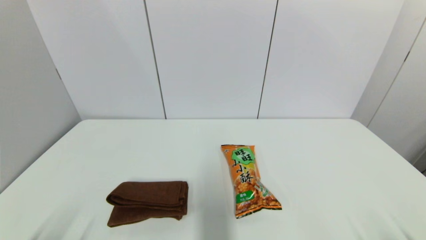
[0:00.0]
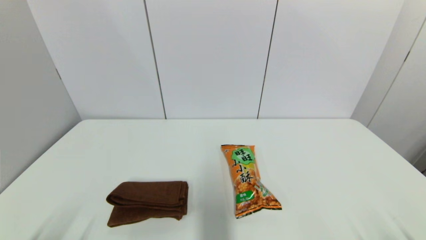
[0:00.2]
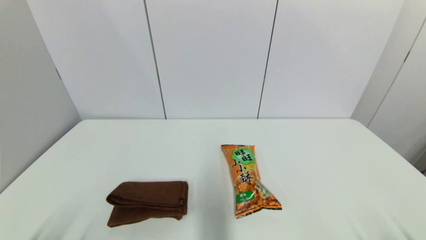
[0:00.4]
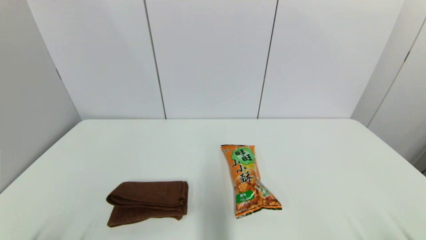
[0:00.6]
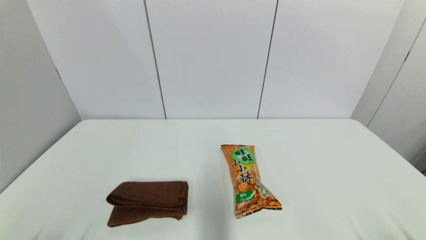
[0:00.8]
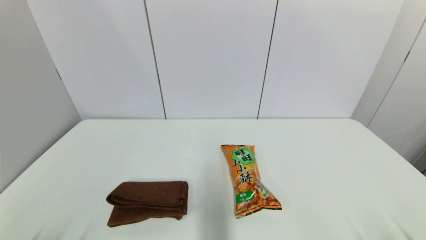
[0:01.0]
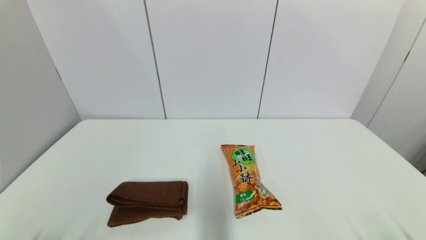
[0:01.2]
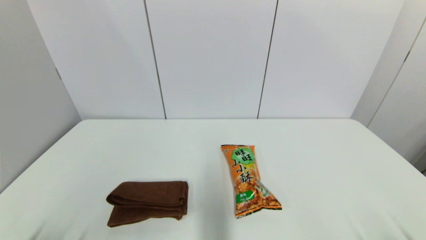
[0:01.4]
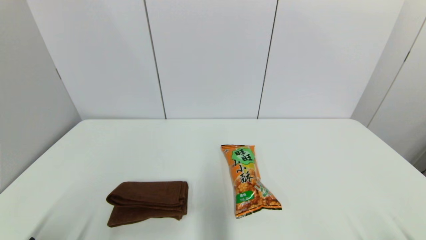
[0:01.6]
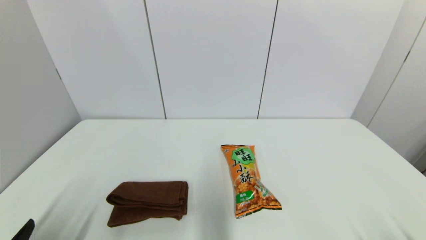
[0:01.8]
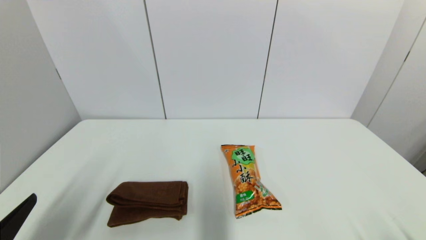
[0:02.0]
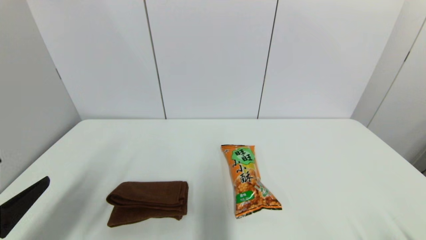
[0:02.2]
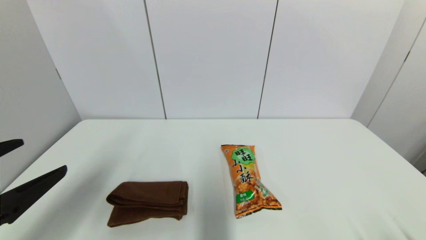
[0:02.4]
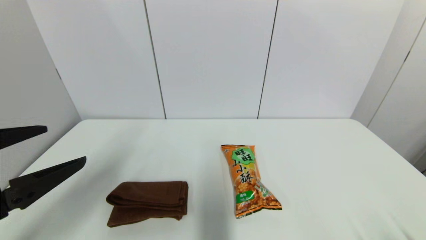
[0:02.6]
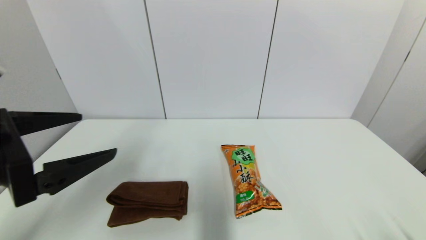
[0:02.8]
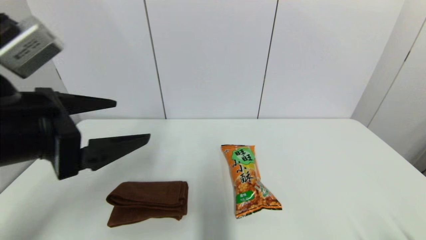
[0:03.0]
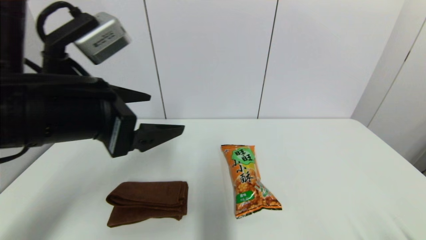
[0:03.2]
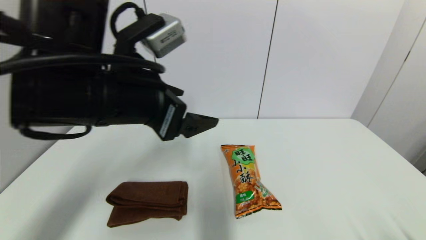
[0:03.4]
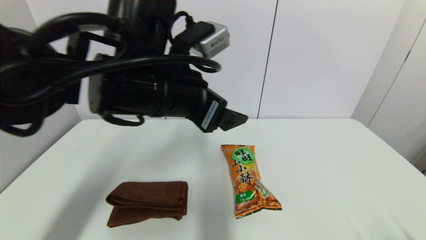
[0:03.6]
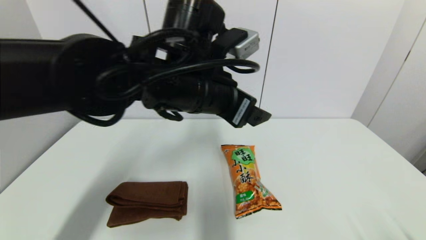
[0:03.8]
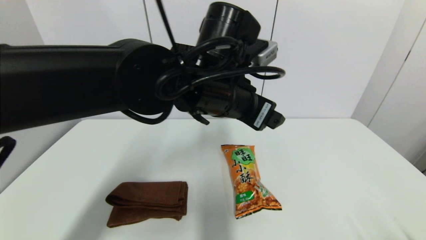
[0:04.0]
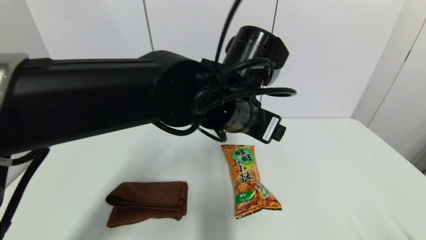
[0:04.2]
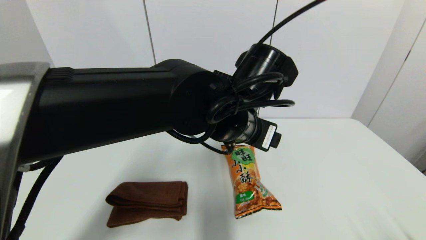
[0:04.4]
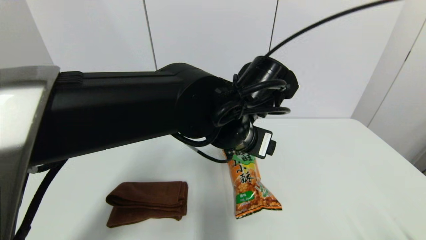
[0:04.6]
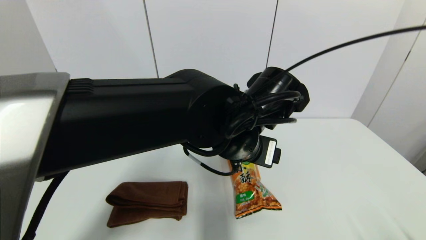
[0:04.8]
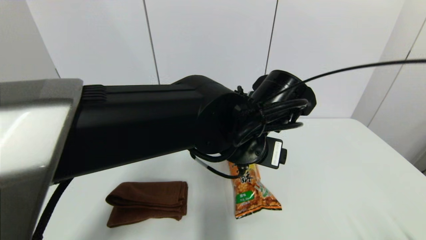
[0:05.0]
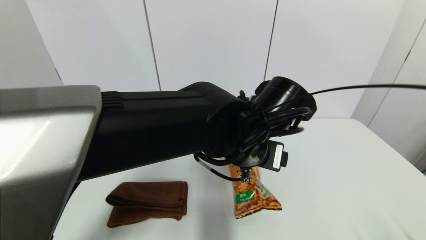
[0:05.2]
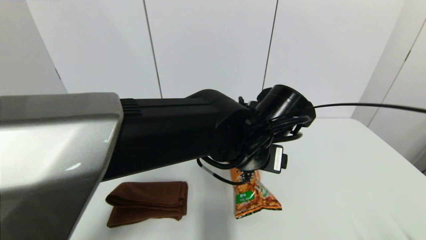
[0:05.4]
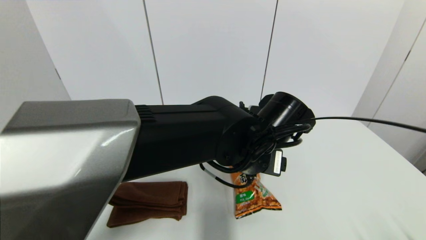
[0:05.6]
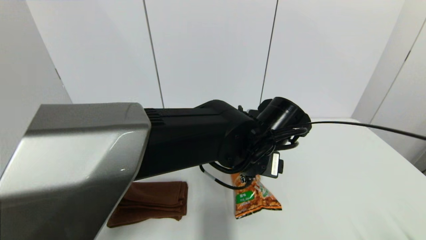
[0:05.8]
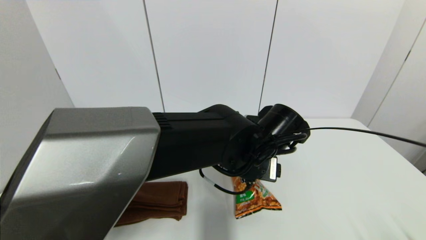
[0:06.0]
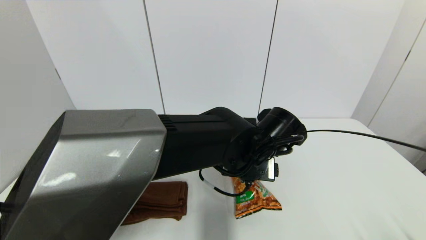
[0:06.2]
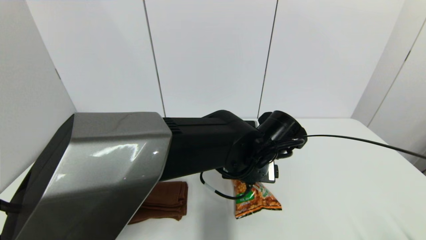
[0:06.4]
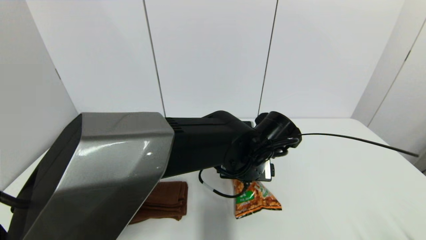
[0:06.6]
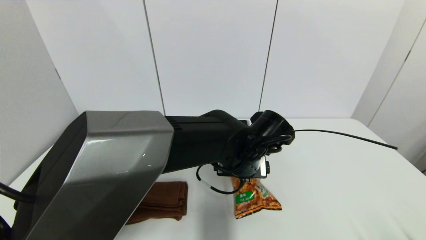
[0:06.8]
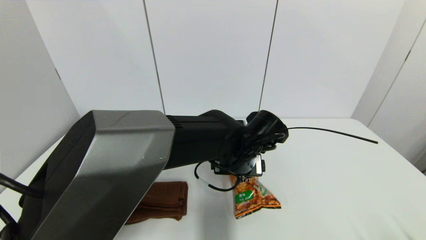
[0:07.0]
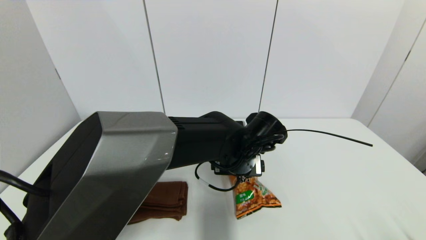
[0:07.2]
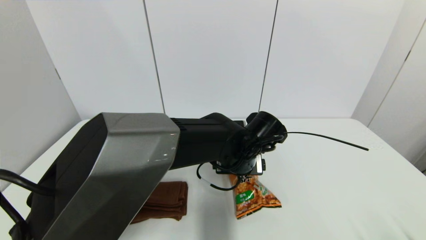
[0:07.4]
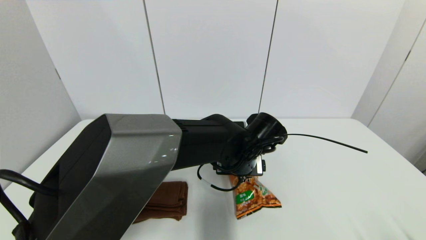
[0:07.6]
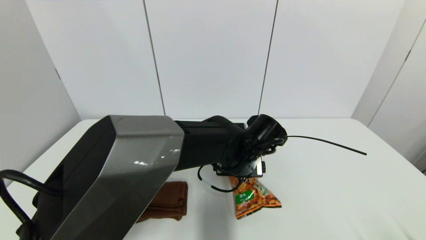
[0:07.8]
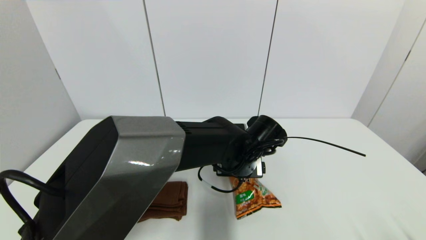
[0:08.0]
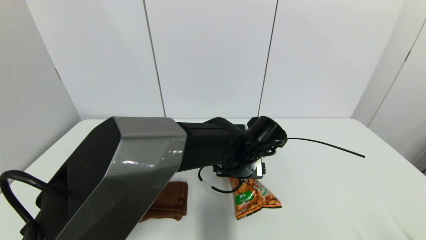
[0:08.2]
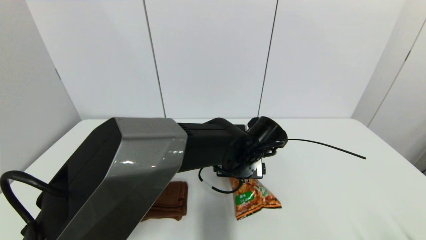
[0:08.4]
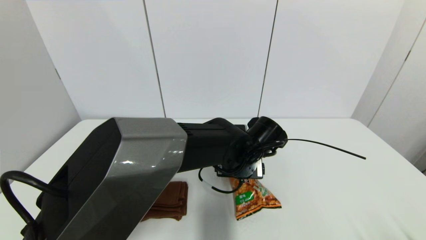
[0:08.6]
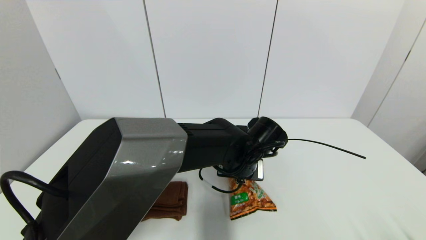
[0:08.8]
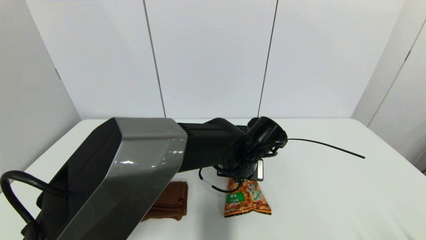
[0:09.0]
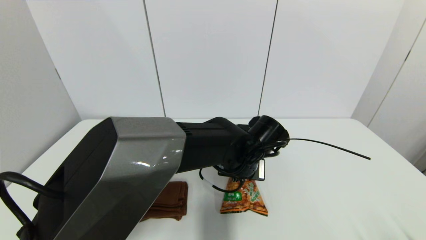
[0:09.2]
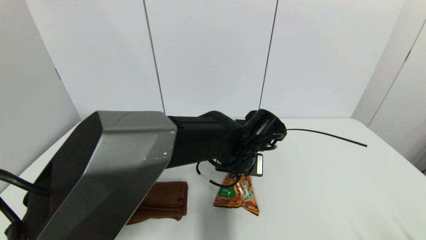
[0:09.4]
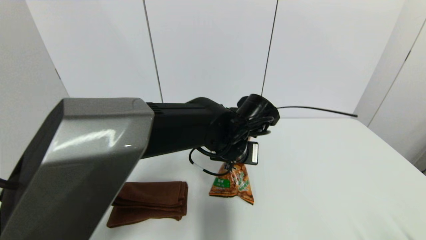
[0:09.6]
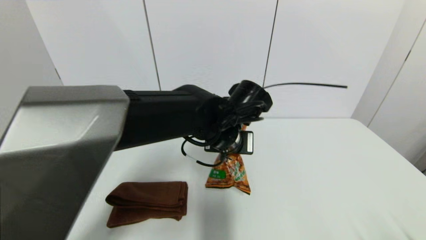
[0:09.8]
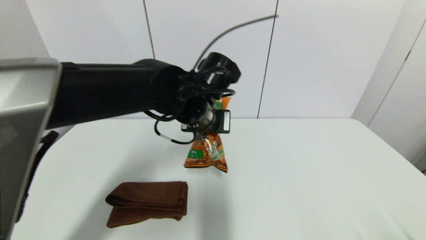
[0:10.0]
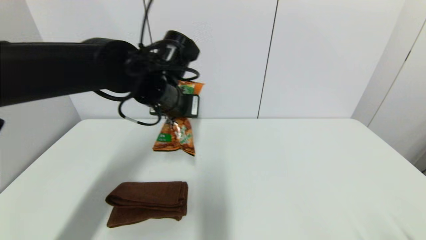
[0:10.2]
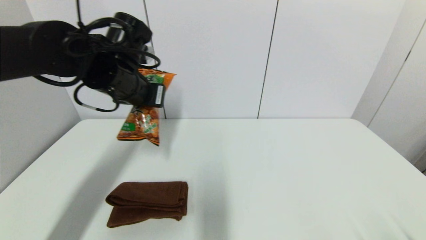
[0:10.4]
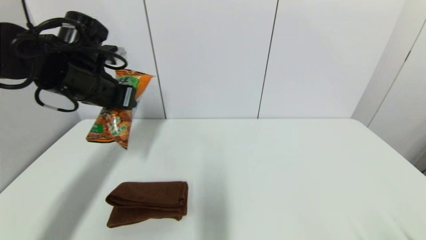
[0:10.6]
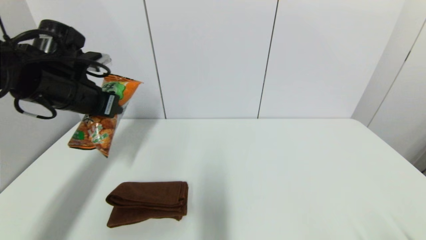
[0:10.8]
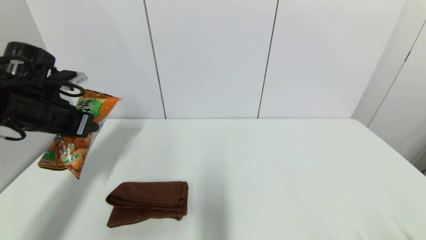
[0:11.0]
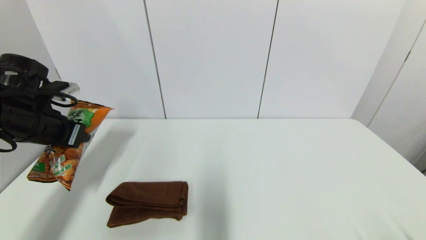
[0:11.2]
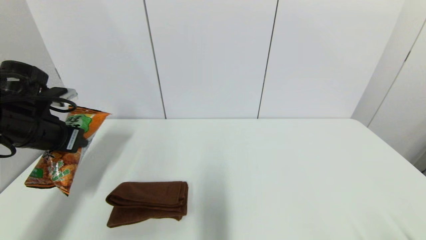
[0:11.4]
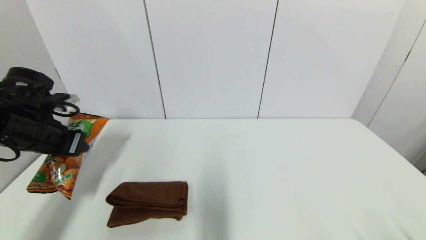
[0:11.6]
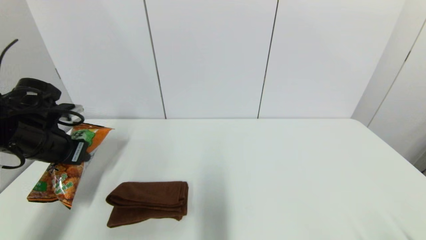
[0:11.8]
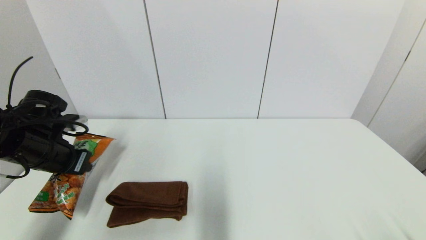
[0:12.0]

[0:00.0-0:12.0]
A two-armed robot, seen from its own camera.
Step, 0:01.8 to 0:09.2: Grasp the cookie with left gripper.
0:01.6 to 0:03.0: The left gripper goes roughly 25 cm upward, forward and to the right.
0:03.0 to 0:04.4: The left gripper goes approximately 25 cm to the right and forward.
0:04.4 to 0:06.0: The left gripper is displaced downward by roughly 10 cm.
0:06.0 to 0:07.6: The left gripper ends up some 5 cm from where it was.
0:07.6 to 0:09.0: The left gripper closes up.
0:09.0 to 0:10.4: The left gripper travels to the left and upward by about 25 cm.
0:10.4 to 0:12.0: The left gripper shifts approximately 20 cm to the left and downward.

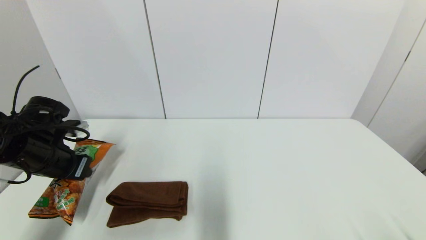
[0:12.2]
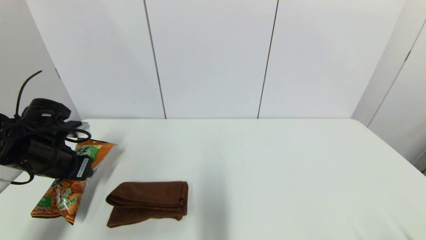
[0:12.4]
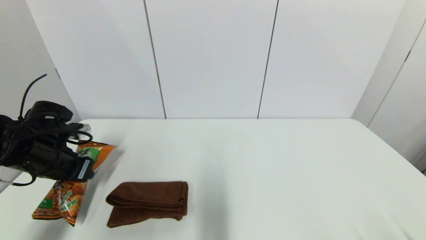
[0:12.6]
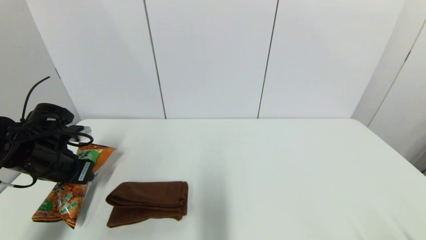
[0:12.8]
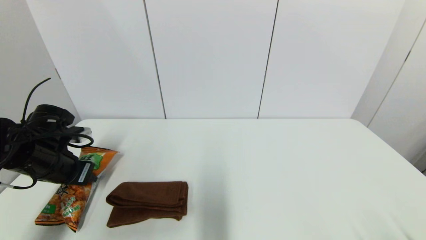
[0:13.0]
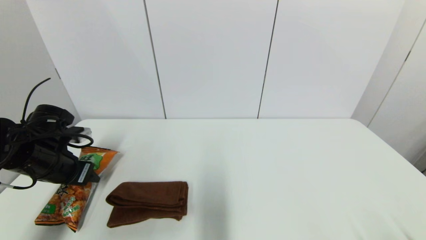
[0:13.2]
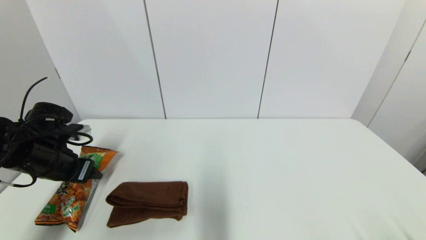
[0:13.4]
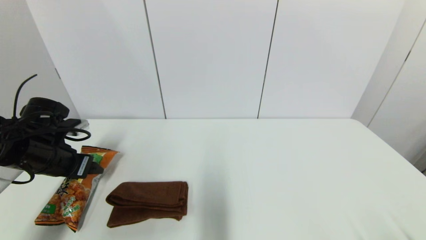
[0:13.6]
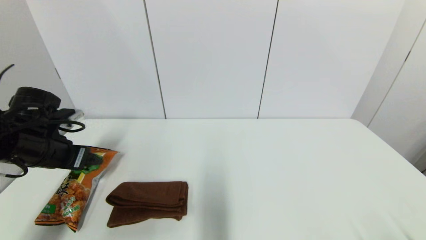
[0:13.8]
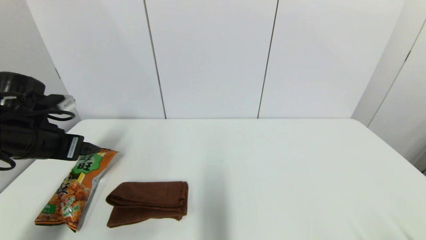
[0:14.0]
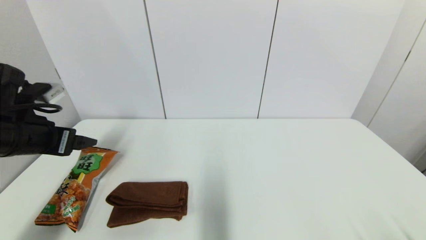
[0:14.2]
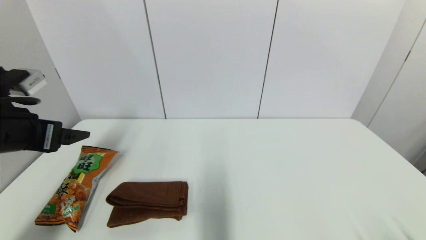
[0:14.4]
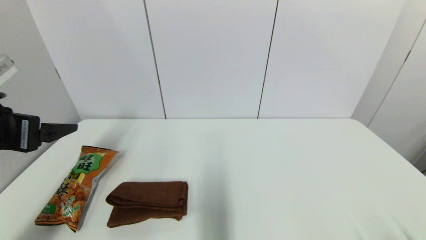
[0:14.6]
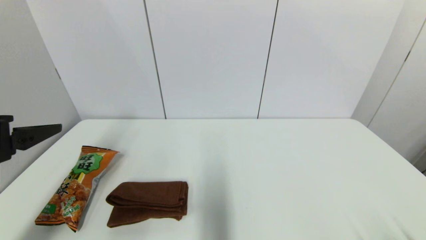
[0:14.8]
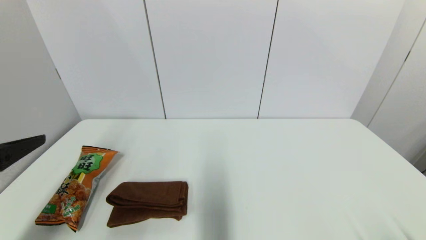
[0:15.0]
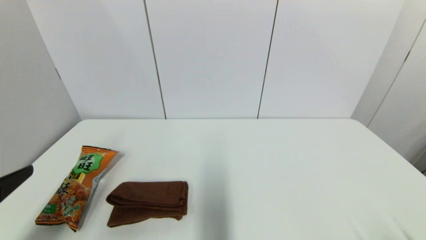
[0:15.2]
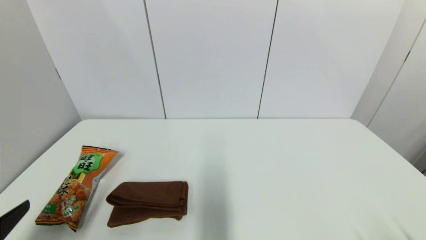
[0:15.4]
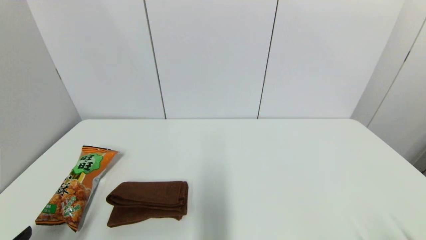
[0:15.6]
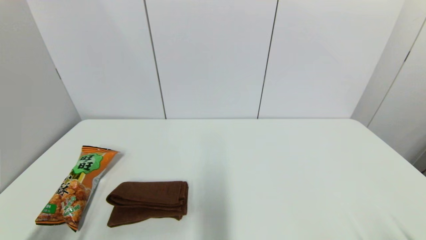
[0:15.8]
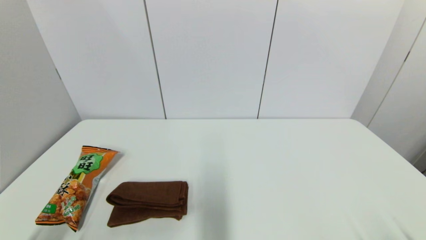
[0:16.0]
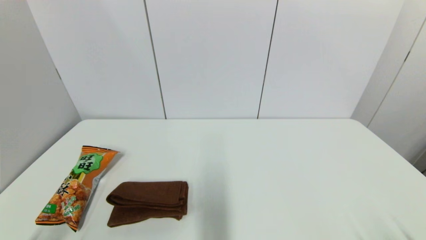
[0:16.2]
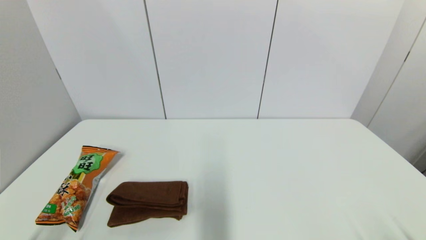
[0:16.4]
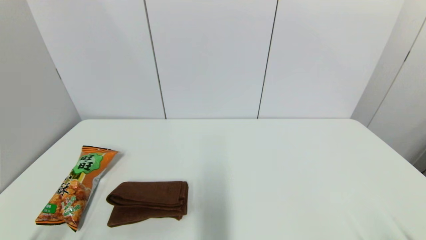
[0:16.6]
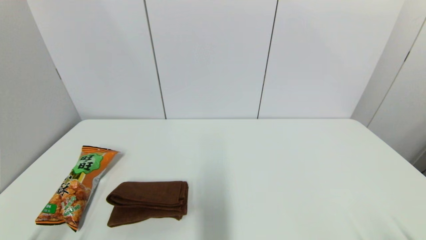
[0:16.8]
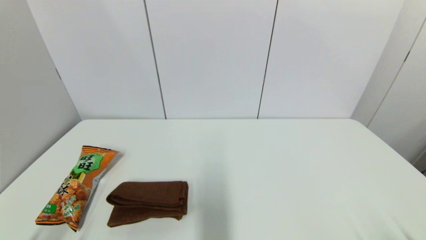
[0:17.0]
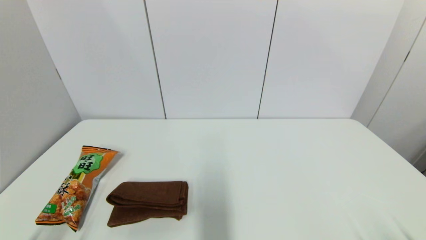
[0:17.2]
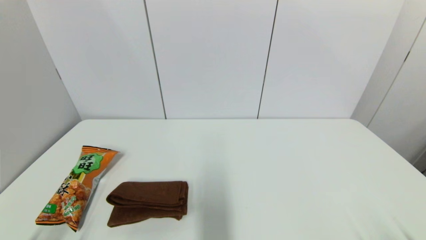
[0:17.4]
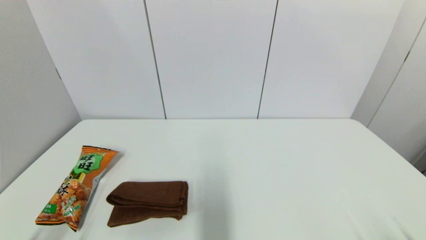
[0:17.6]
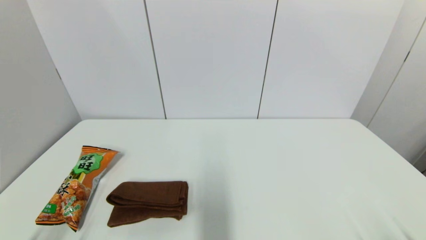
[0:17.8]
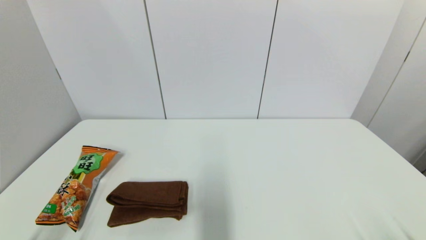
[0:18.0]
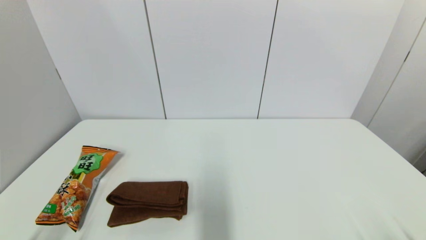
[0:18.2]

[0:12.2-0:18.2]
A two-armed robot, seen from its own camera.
0:12.2 to 0:13.8: The left gripper opens.
0:13.8 to 0:15.2: The left gripper heads backward, covering approximately 20 cm.
0:15.2 to 0:16.6: The left gripper travels downward and backward by some 15 cm.
0:16.6 to 0:18.2: Both grippers stay about where they are.
